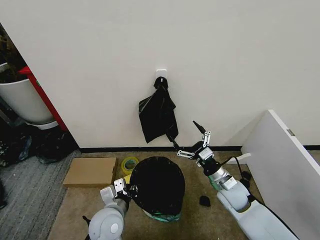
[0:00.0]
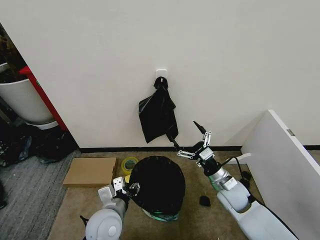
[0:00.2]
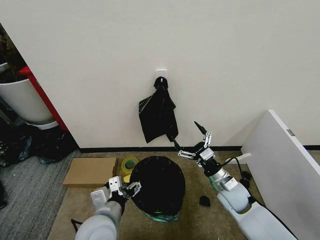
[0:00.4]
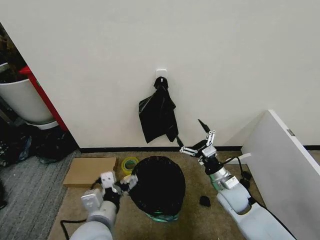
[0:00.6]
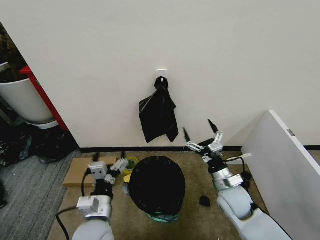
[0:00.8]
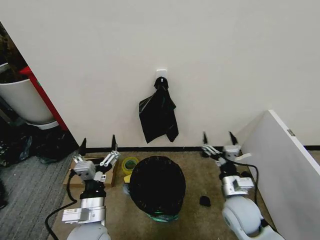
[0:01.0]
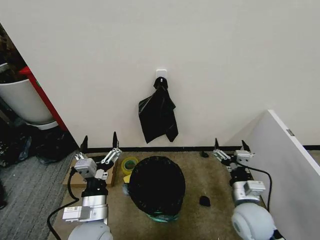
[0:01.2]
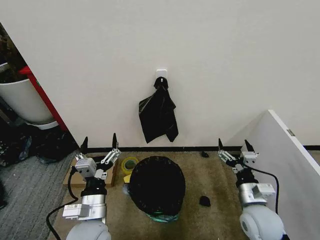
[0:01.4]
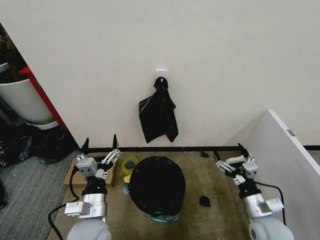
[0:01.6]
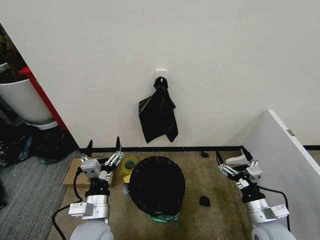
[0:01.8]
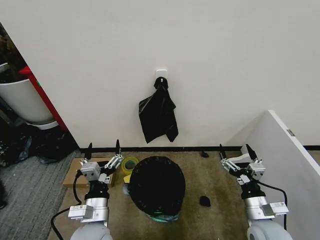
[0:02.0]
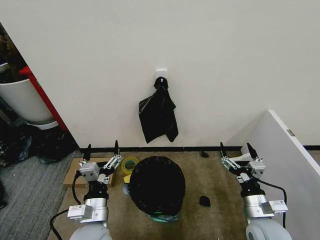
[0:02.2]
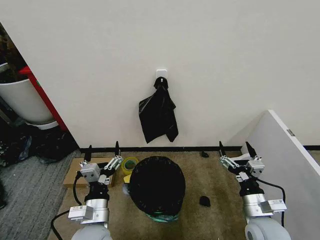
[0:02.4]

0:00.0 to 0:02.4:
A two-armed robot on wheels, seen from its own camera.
Task of the whole recording: Place the garbage bag over the trash bin.
0:00.0 to 0:01.2: The left gripper heads upward, covering some 5 cm, and opens its fingers; the right gripper heads backward, covering roughly 10 cm.
